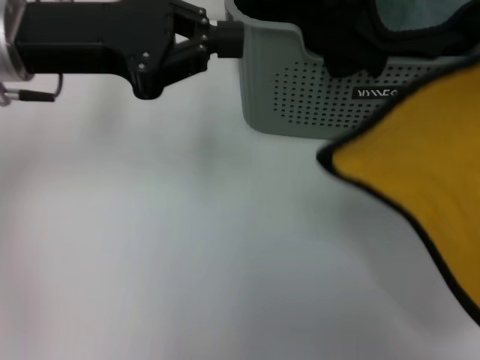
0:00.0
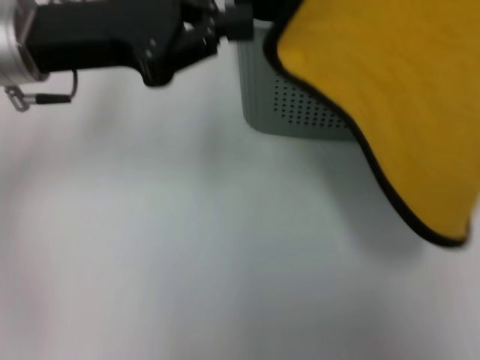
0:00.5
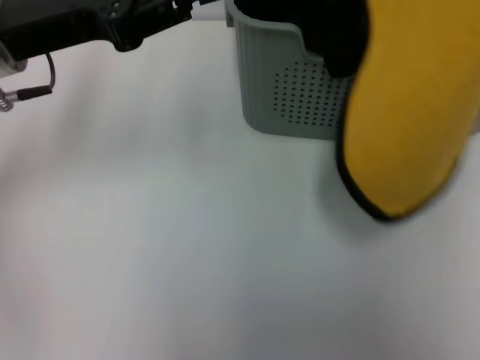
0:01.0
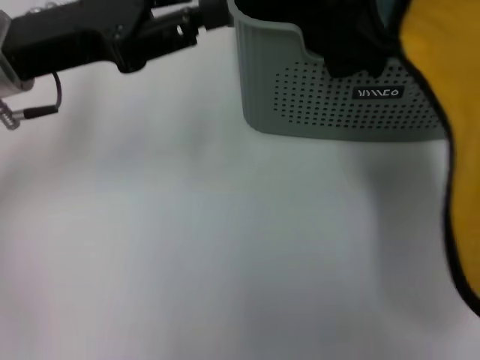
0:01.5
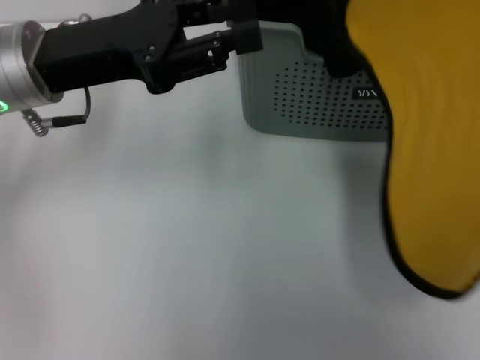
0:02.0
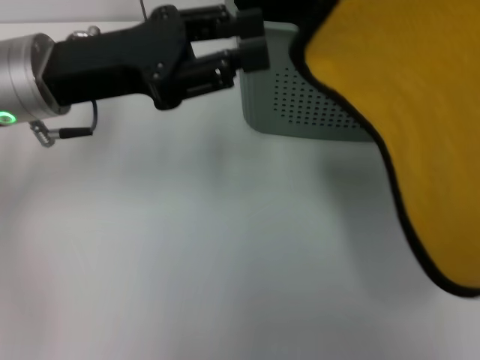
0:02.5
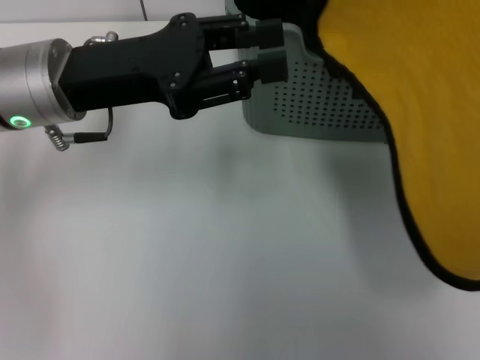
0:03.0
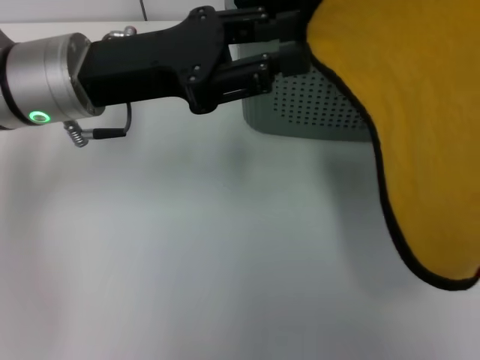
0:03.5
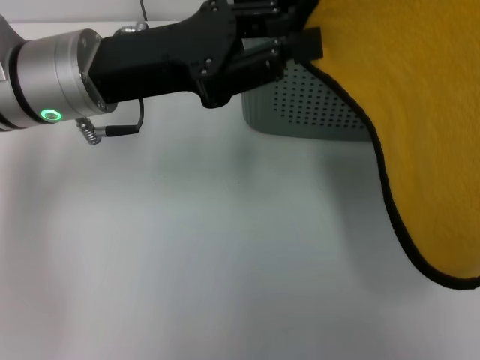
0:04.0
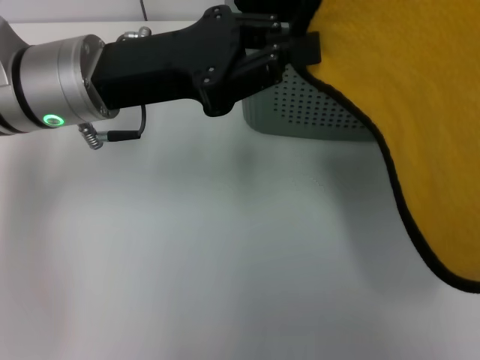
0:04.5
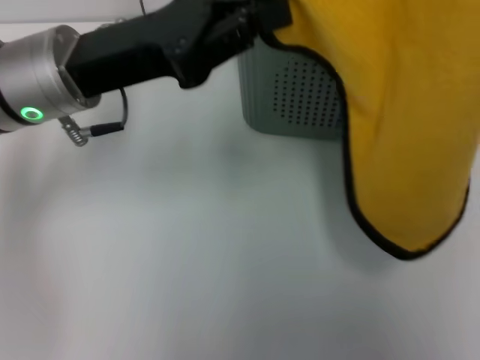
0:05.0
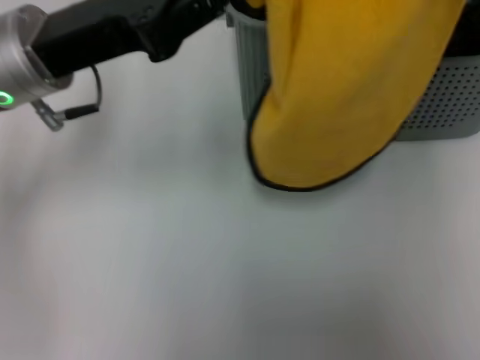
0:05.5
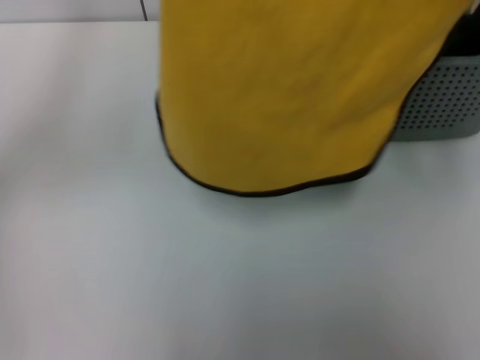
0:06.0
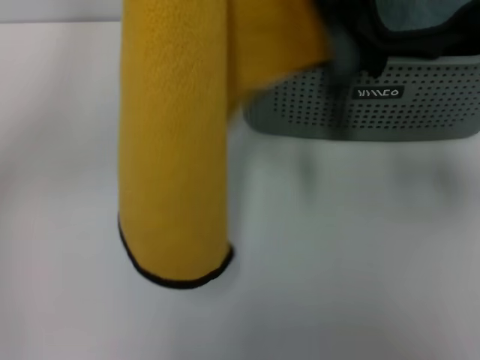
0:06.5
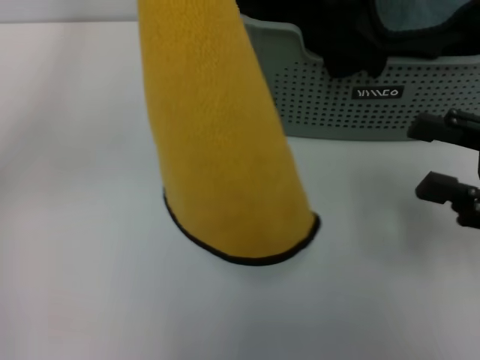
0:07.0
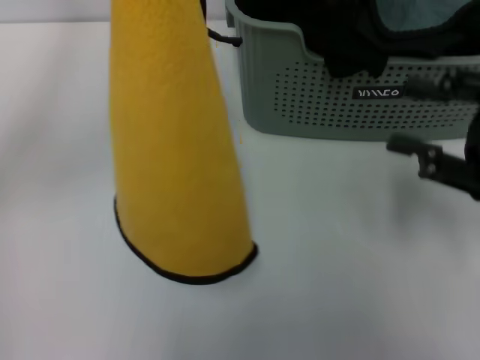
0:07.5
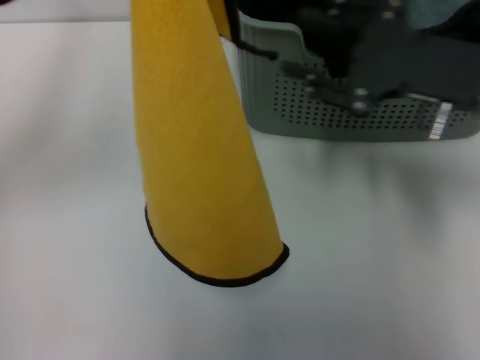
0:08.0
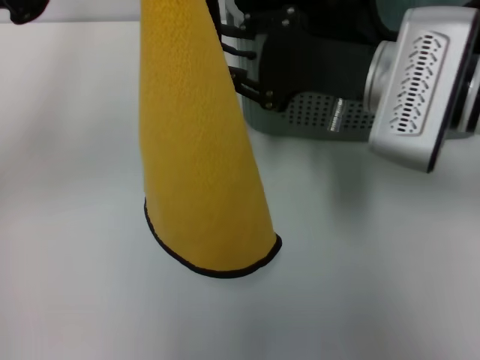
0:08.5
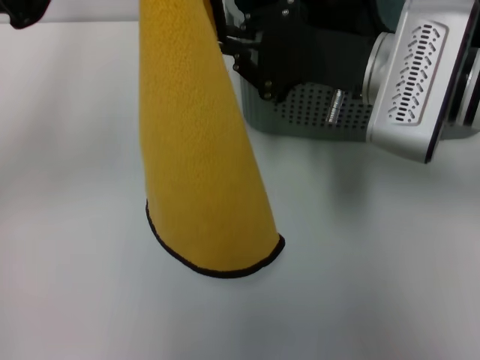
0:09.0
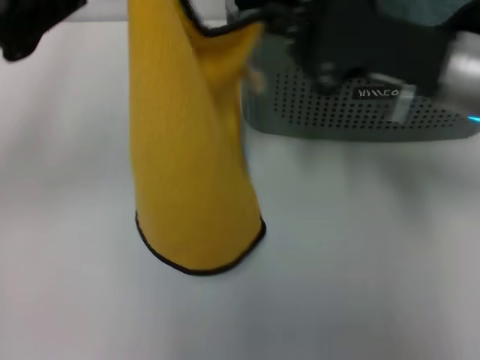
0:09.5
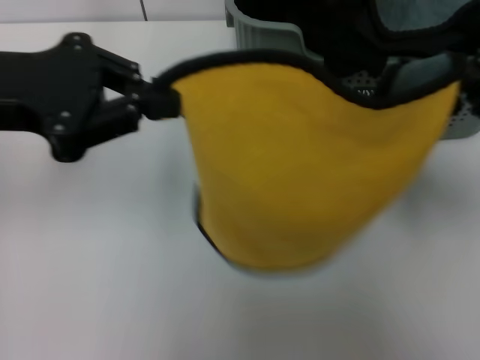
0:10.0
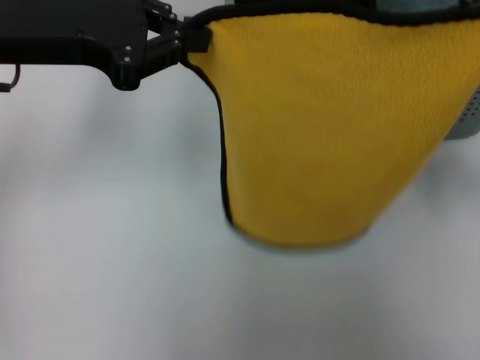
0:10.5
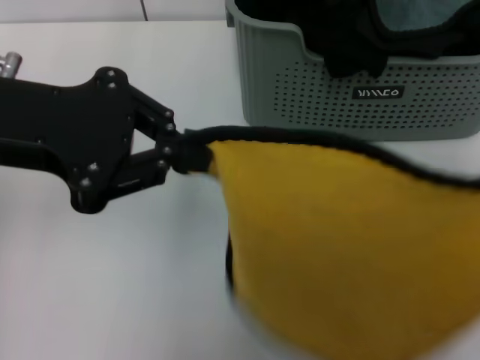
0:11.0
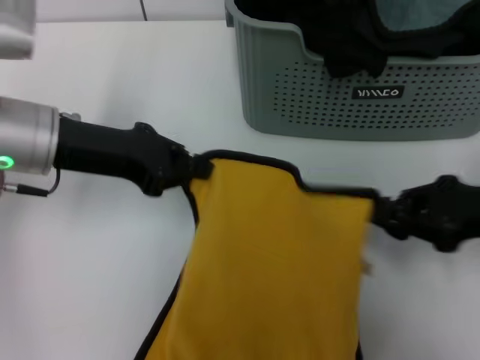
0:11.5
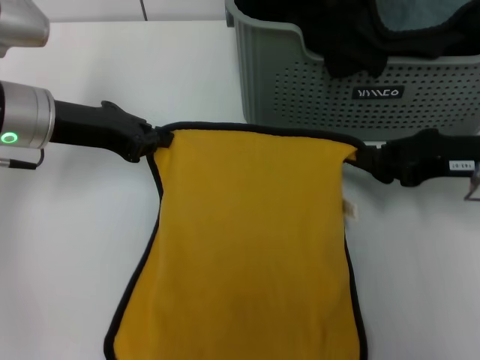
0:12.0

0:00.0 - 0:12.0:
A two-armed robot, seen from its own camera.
Task of the whole recording: pick up the towel from the storage box and lay it flat on the table.
0:00.0 - 0:02.0: The left gripper opens its fingers. Meanwhile the right gripper travels upward by approximately 5 cm.
0:04.0 - 0:06.0: The right gripper is displaced downward by some 20 cm, and opens its fingers, while the left gripper moves upward and to the left, about 10 cm, and closes its fingers.
0:06.0 - 0:08.0: The right gripper moves to the left and downward, about 15 cm.
0:08.0 - 0:10.0: The right gripper goes some 10 cm to the right, and closes its fingers.
0:10.0 - 0:12.0: The grippers both shift downward and forward by roughly 10 cm.

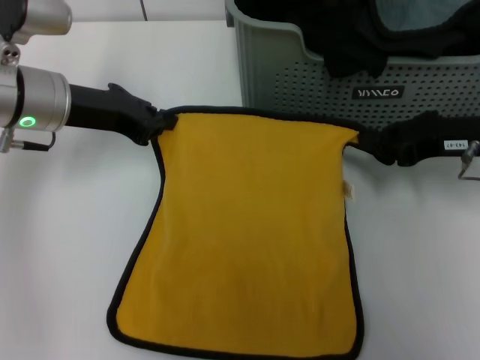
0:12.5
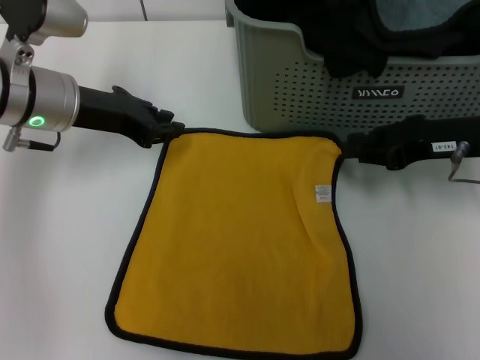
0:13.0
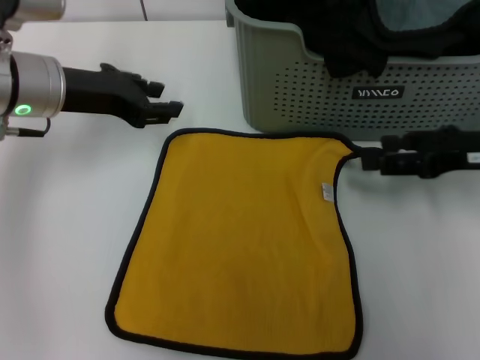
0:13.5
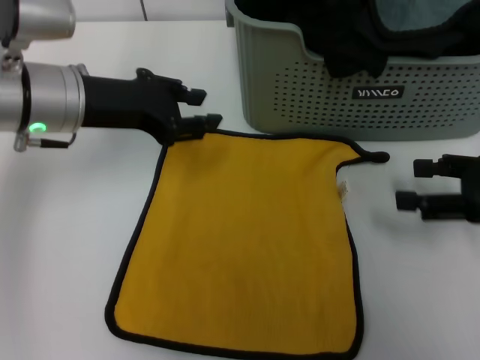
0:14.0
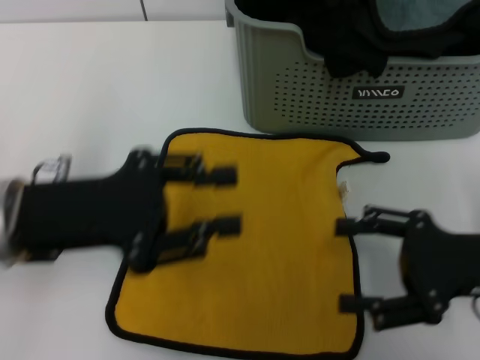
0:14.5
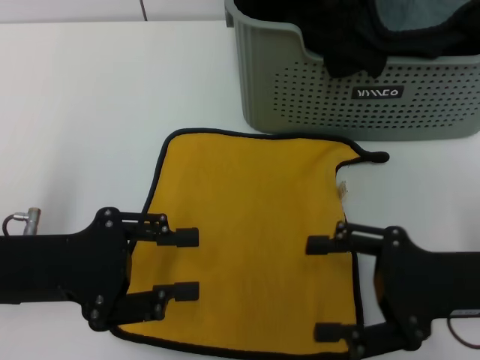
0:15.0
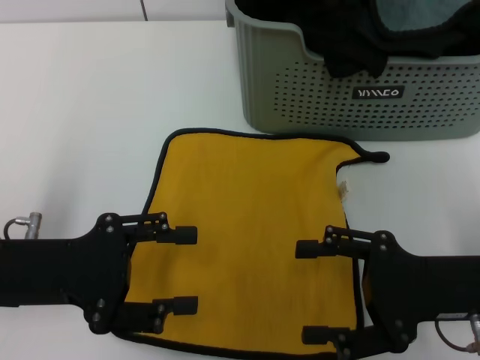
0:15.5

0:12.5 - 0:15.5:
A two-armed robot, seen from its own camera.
Task of the whole recording: pick up the towel from the storage box and lay it flat on the table.
0:12.5 - 0:14.0: The left gripper opens, while the right gripper shifts roughly 10 cm backward and to the right, and opens.
0:14.0 - 0:15.5: The left gripper shifts roughly 15 cm backward and to the left; the right gripper moves to the left and downward, some 10 cm.
